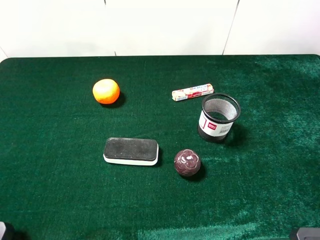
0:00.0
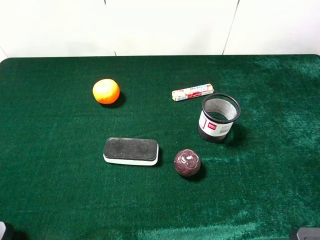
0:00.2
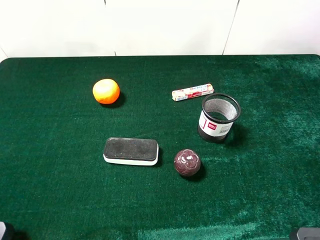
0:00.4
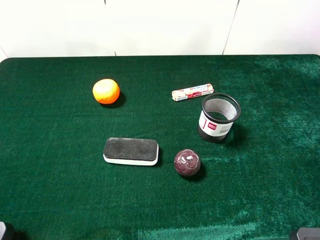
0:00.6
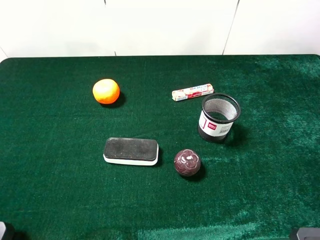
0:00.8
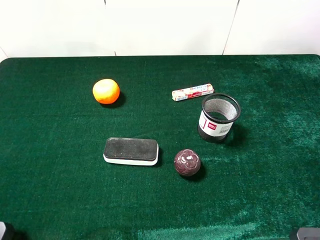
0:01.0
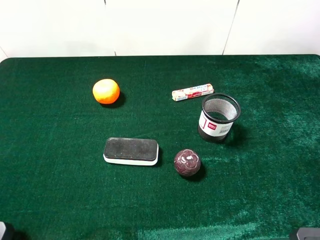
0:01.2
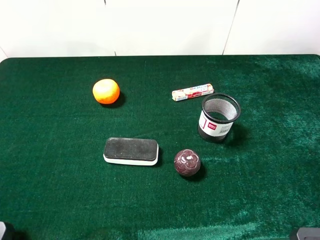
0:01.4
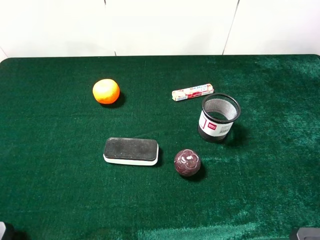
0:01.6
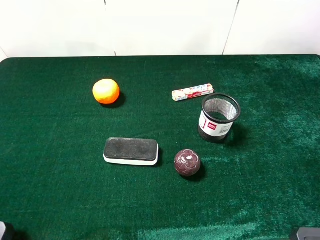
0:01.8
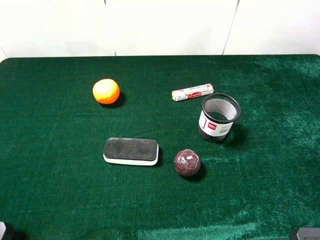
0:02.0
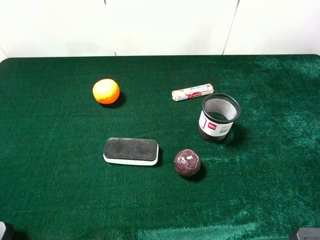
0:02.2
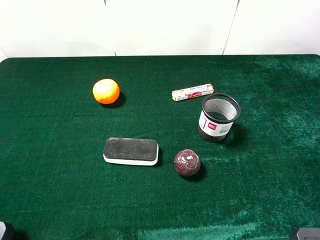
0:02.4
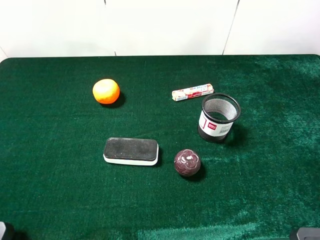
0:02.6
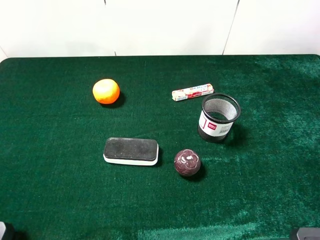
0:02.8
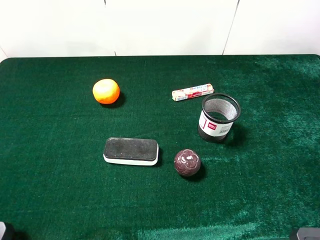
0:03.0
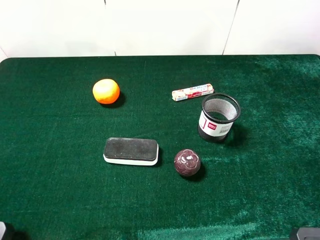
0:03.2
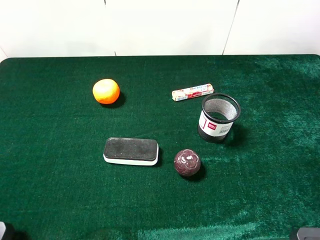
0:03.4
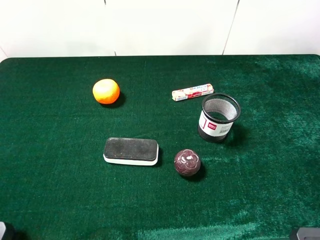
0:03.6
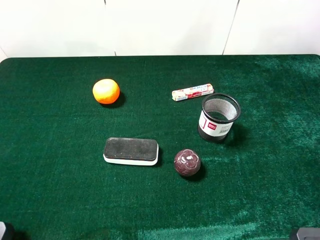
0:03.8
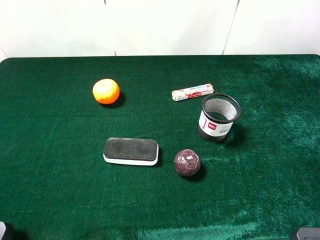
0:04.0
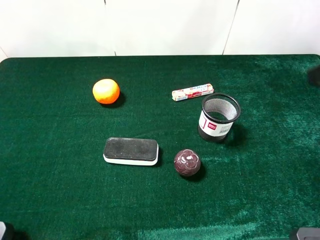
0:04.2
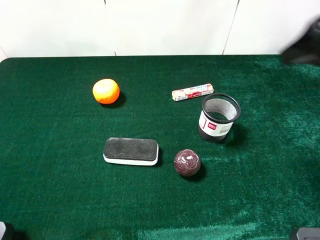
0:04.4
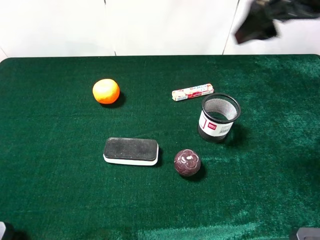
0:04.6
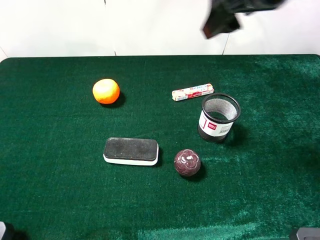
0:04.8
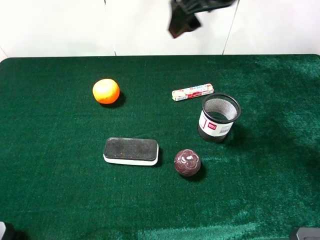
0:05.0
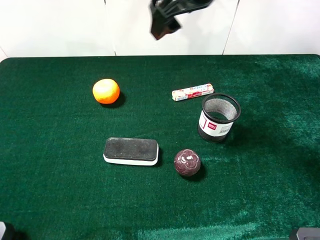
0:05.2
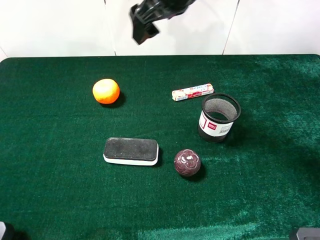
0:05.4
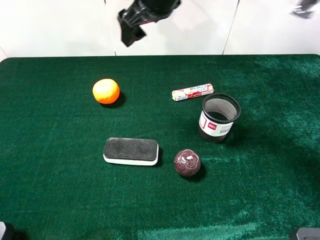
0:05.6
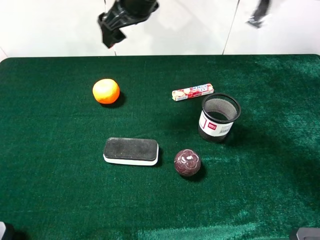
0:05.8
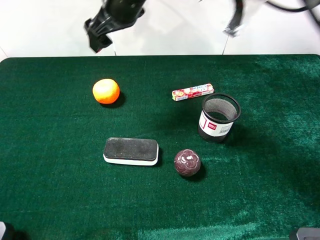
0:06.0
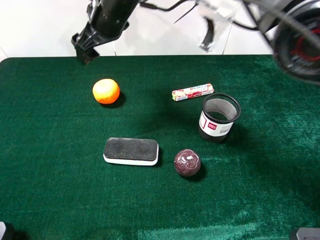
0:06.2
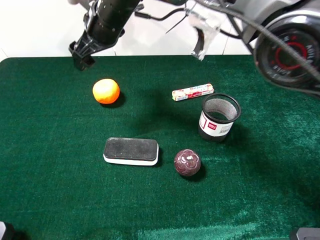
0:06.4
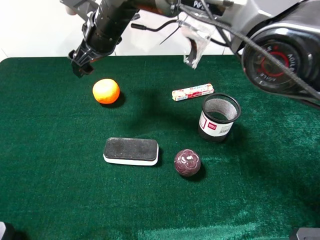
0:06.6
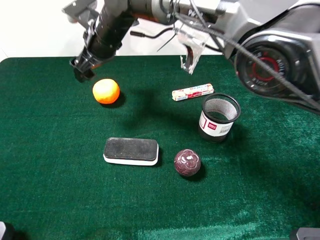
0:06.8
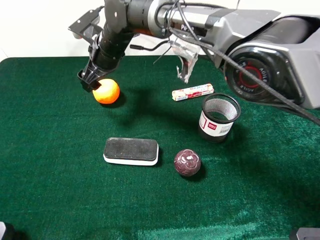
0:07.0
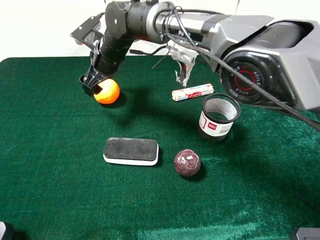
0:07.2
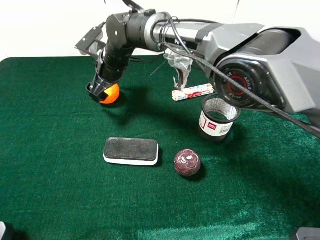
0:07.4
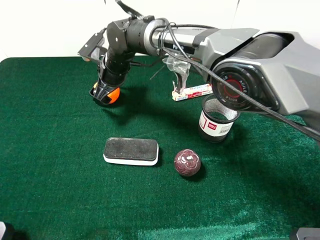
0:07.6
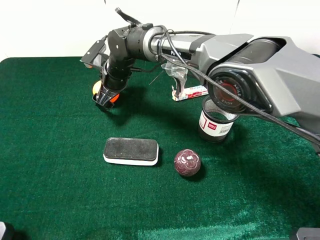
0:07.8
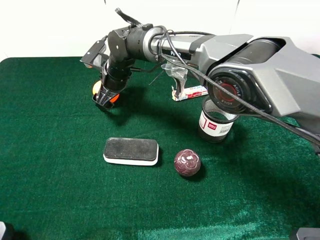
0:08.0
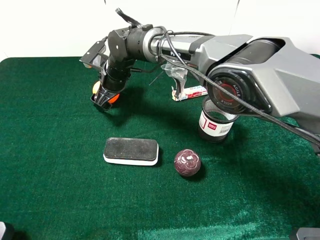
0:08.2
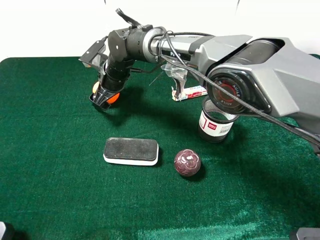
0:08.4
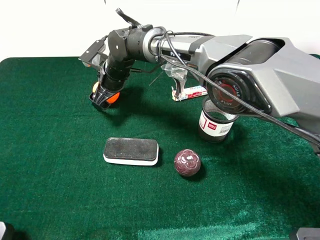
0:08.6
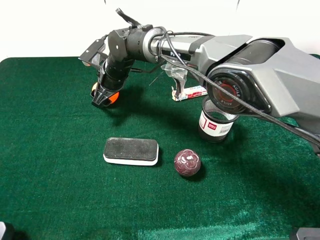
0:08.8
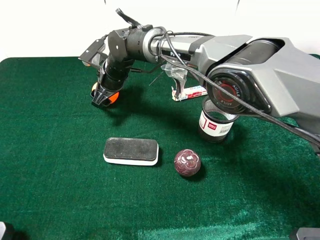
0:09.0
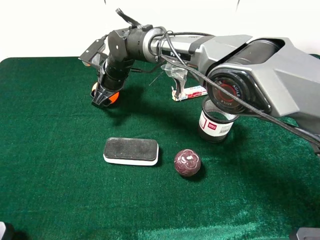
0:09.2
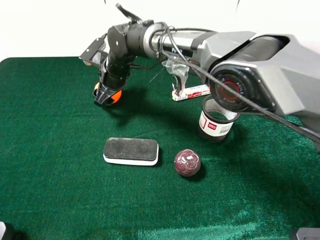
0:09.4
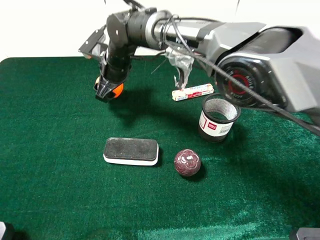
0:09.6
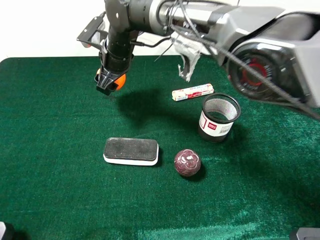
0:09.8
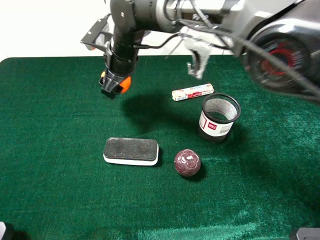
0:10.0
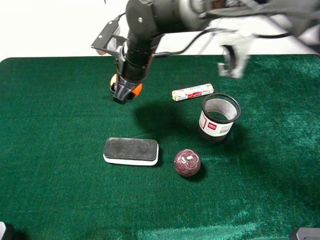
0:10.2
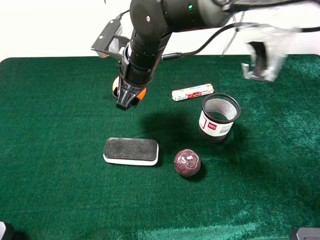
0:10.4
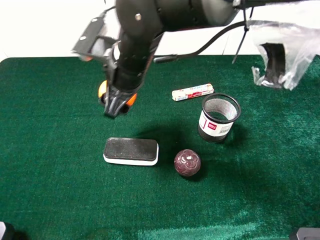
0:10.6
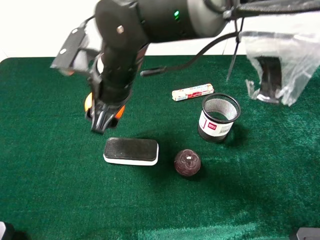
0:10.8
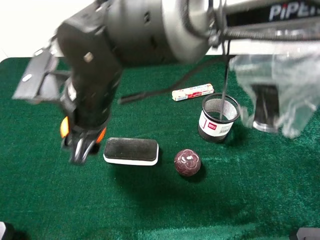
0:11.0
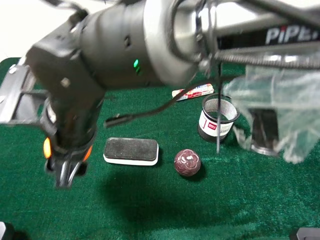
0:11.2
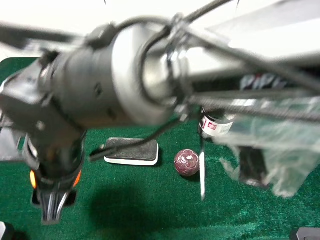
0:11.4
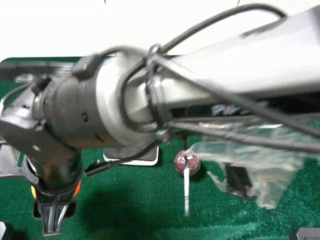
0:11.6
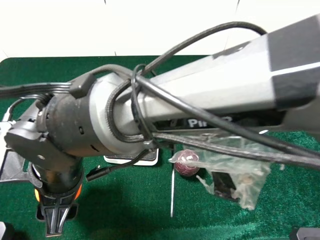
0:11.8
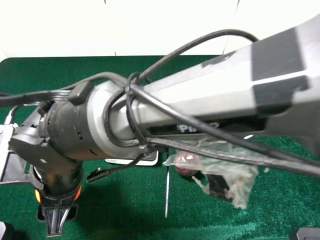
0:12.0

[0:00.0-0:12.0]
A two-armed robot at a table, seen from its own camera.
Task of the whole recording: the gripper move the object.
Step, 0:00.0 to 0:08.8: Grasp the orange with the right gripper.
0:00.0 to 0:03.0: Both grippers stay put.
0:03.0 to 0:04.4: The right gripper shifts roughly 20 cm forward.
0:04.4 to 0:06.0: The right gripper moves to the left and forward, roughly 35 cm.
0:06.0 to 0:07.6: The right gripper moves downward, roughly 15 cm.
0:07.6 to 0:09.0: The right gripper closes up.
0:09.0 to 0:10.4: The right gripper travels upward, backward and to the right by approximately 15 cm.
0:10.4 to 0:12.0: The right gripper shifts roughly 20 cm backward and to the left.

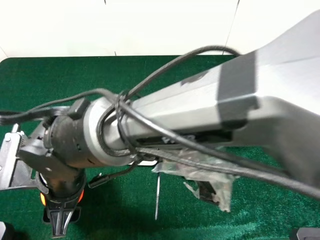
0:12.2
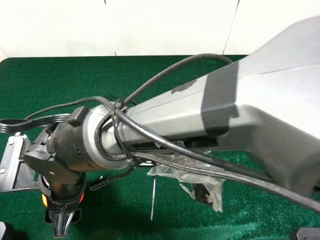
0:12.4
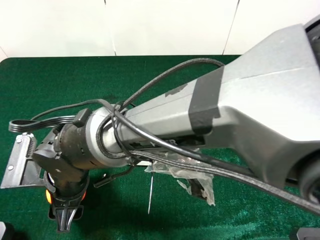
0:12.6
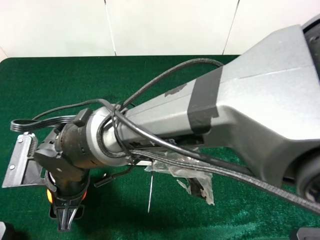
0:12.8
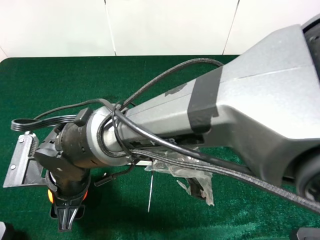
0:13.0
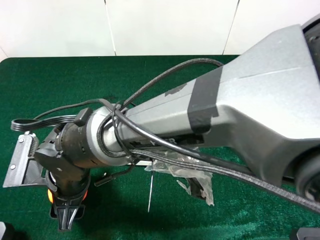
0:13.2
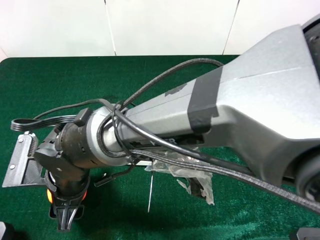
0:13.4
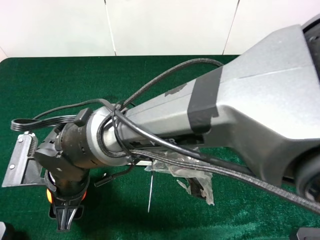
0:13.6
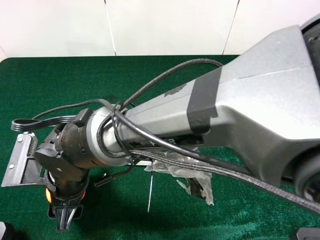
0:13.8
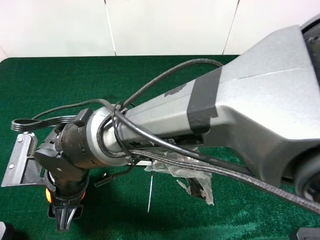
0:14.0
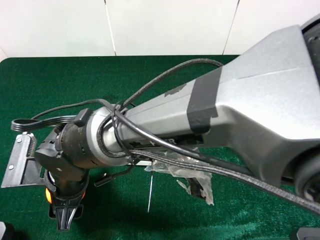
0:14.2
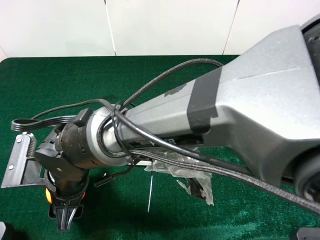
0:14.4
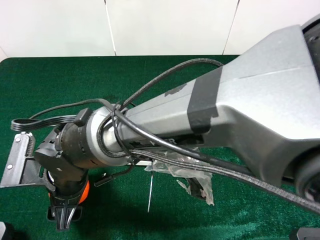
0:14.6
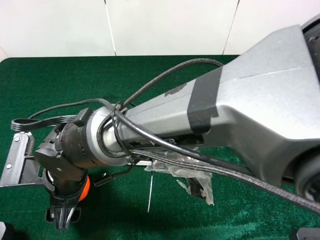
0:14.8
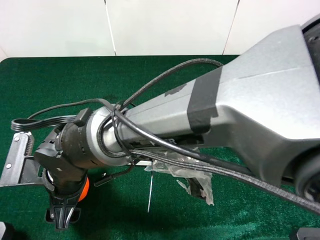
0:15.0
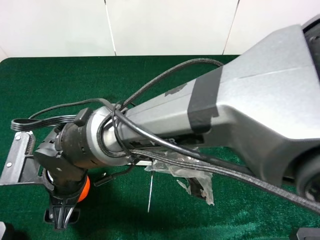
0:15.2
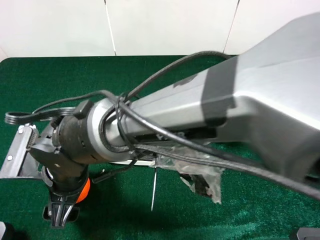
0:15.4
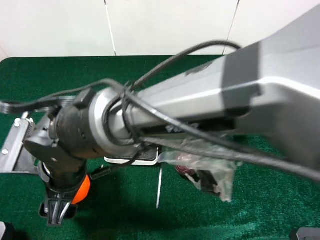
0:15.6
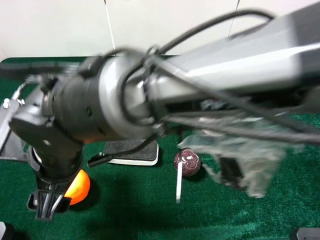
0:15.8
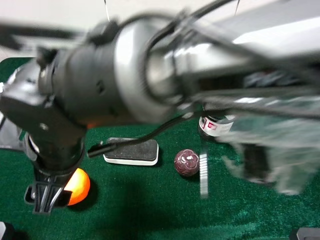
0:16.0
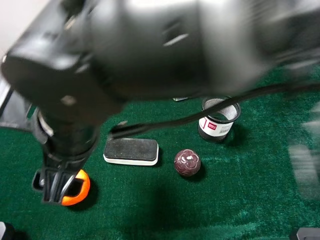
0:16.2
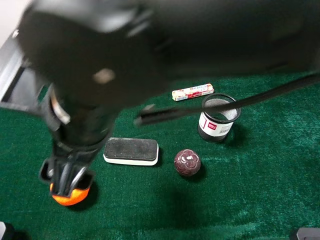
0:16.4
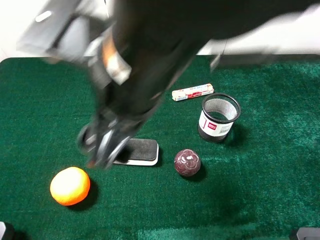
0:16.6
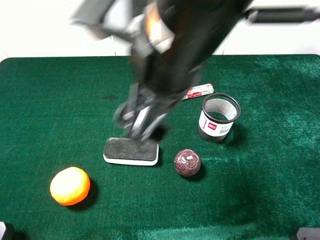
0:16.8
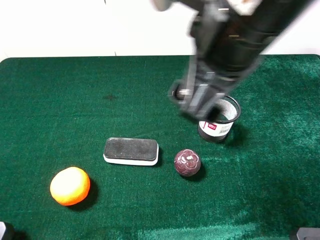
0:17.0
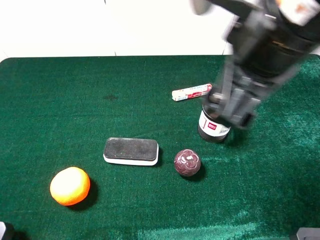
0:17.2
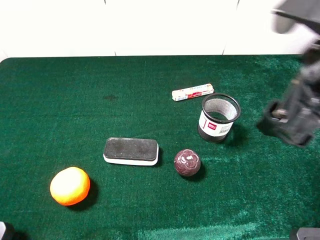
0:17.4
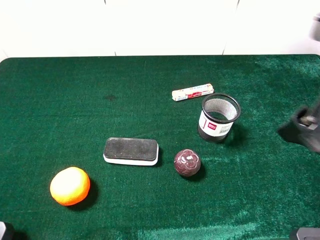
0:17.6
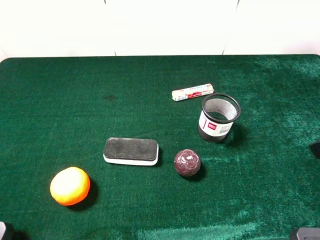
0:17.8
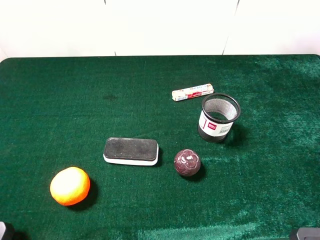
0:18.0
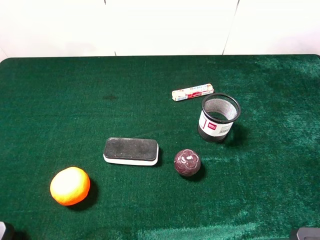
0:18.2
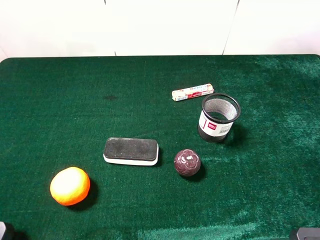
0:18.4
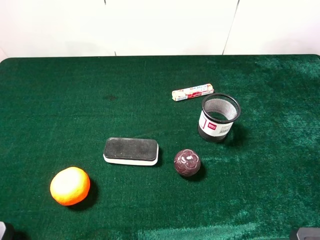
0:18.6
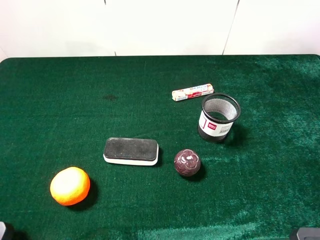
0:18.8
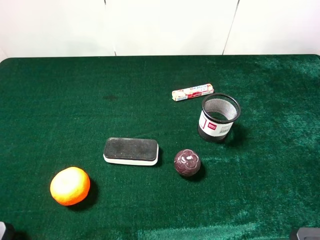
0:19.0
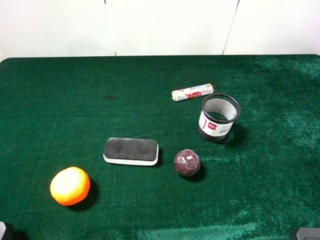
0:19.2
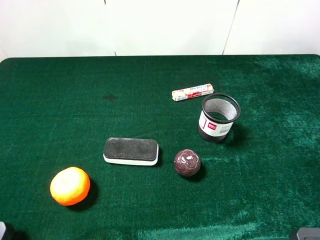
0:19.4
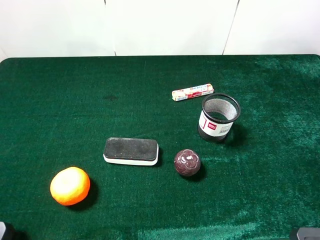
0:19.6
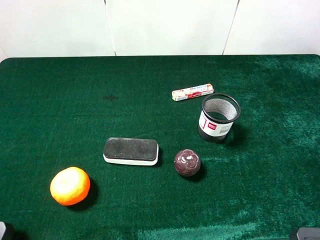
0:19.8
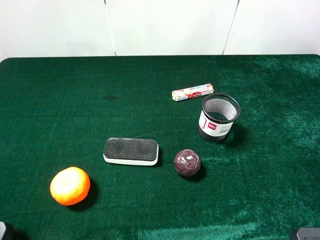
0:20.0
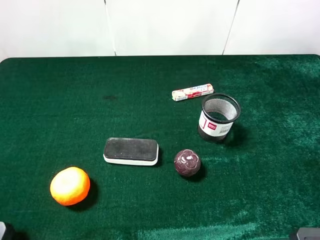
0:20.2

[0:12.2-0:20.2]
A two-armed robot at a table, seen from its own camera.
Task of the whole recording: the gripper move the object.
Step, 0:12.2 to 0:14.6: Place the orange on the table with the right gripper.
0:13.8 to 0:15.4: The right gripper opens.
0:15.4 to 0:17.0: The right gripper is displaced upward and to the right by roughly 30 cm.
0:17.0 to 0:18.6: The right gripper is displaced to the right and backward by approximately 25 cm.

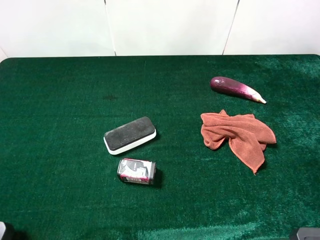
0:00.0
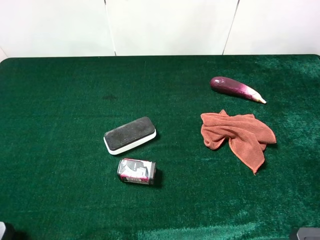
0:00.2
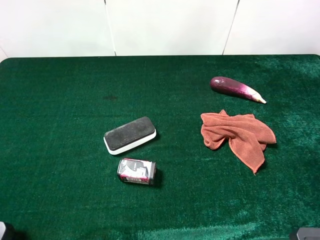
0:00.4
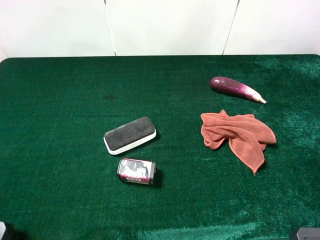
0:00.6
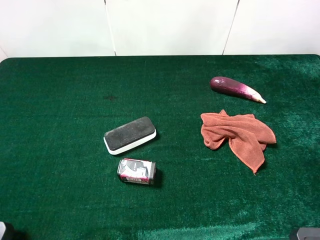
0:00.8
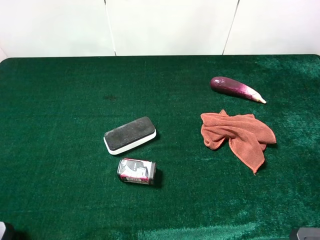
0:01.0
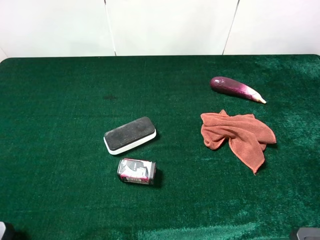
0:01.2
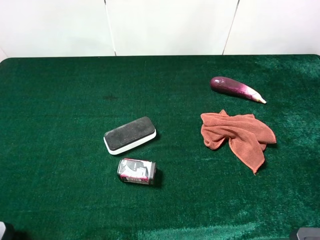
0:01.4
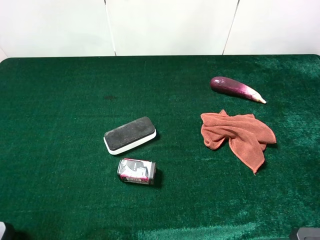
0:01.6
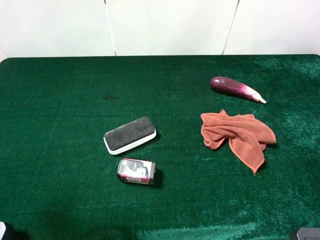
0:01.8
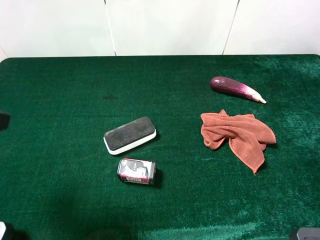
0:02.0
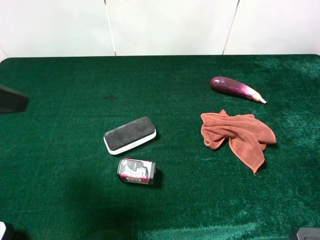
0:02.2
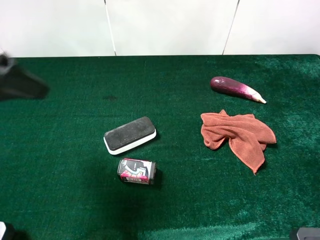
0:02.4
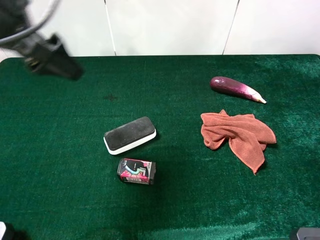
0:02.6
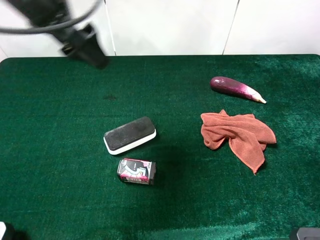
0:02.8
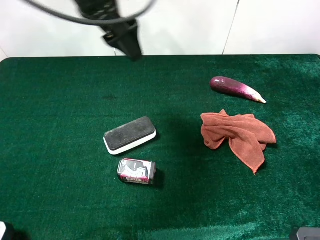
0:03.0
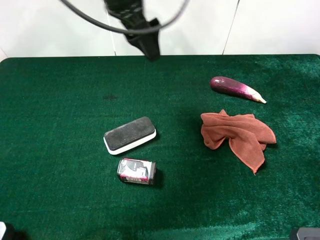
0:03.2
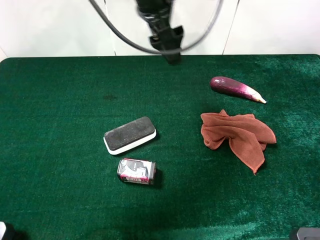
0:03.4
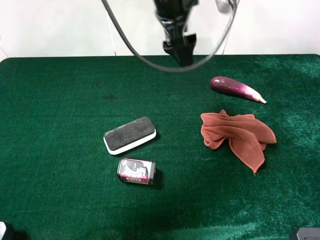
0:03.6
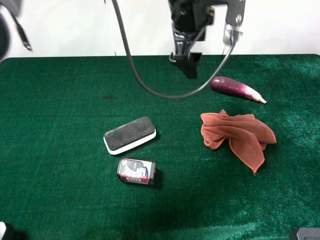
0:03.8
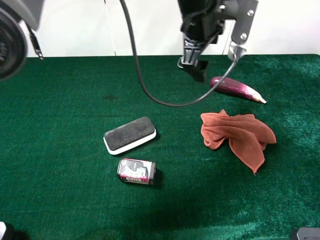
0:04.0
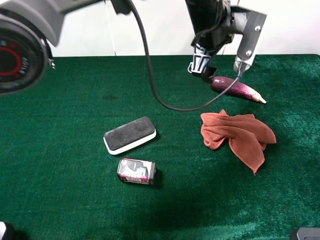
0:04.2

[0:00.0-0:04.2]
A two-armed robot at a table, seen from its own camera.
Task of the whole recording: the gripper move the object.
0:01.4 to 0:02.8: The left gripper shifts approximately 30 cm forward and to the right.
0:02.8 to 0:04.2: The left gripper goes about 25 cm to the right.
